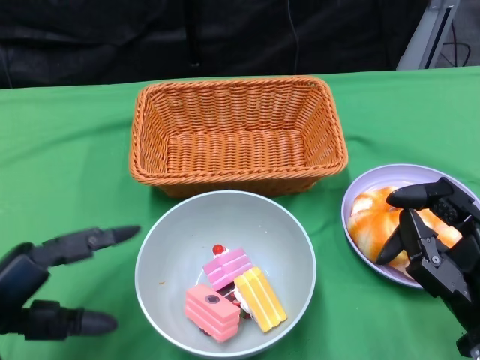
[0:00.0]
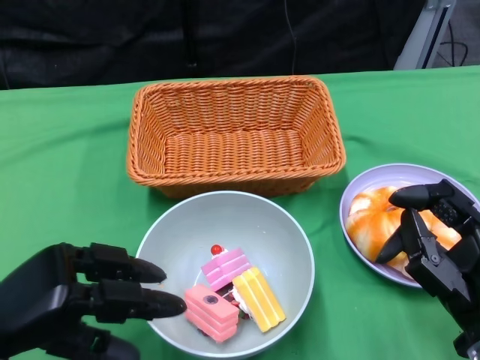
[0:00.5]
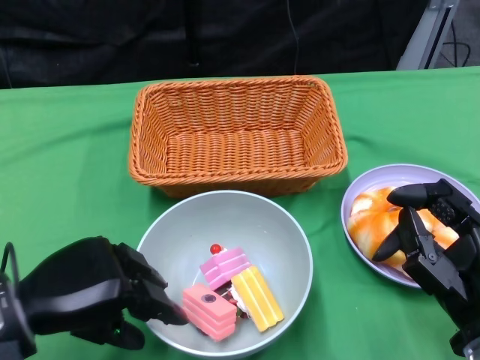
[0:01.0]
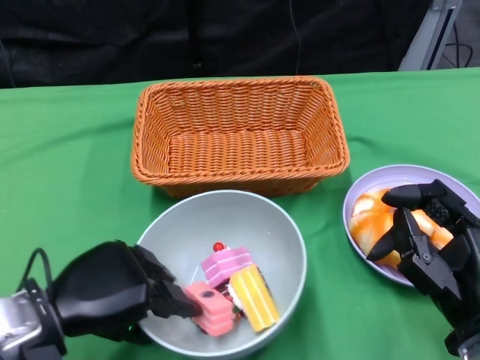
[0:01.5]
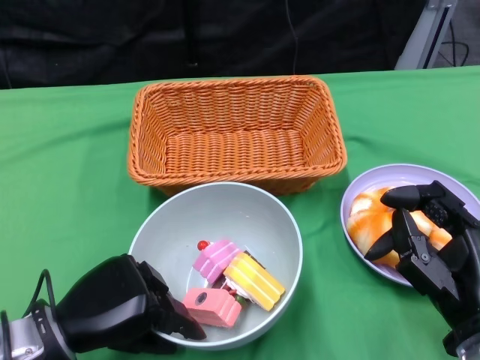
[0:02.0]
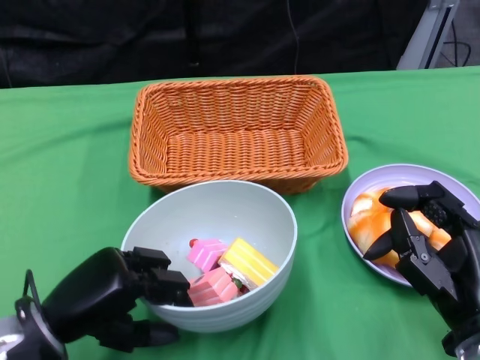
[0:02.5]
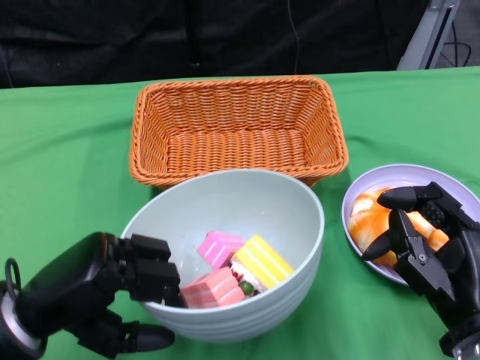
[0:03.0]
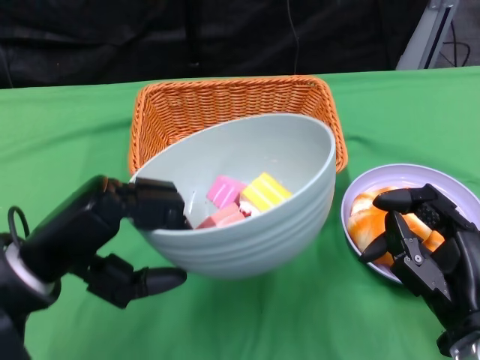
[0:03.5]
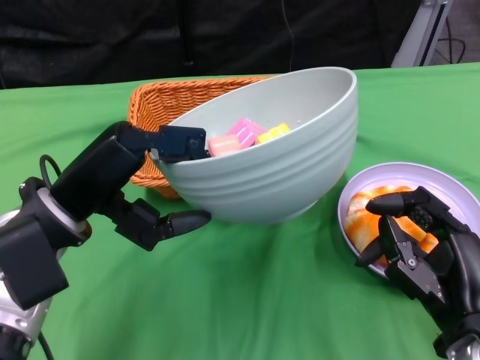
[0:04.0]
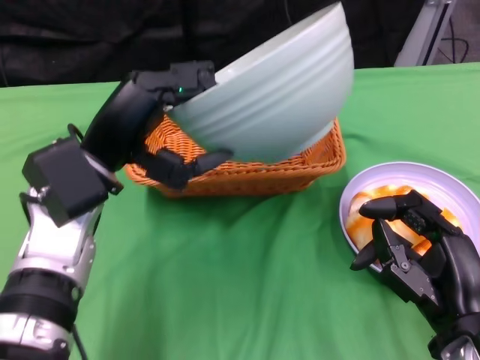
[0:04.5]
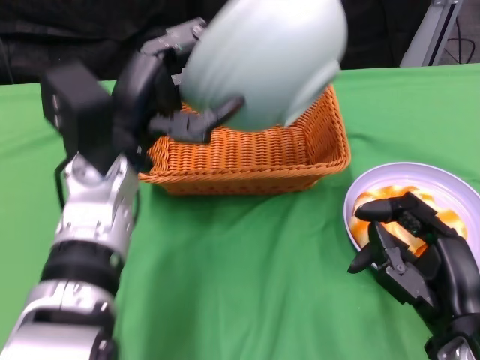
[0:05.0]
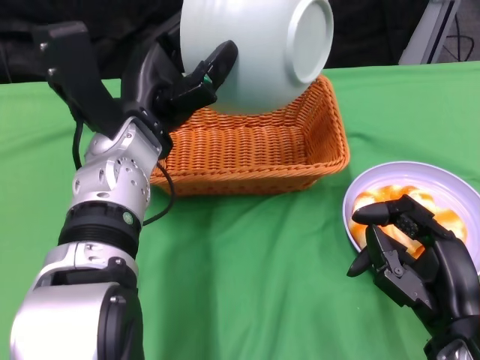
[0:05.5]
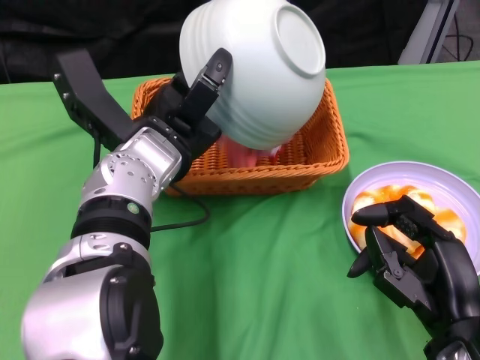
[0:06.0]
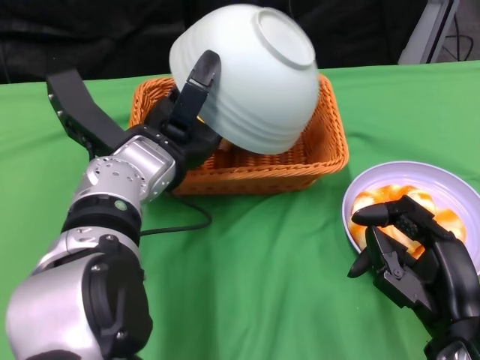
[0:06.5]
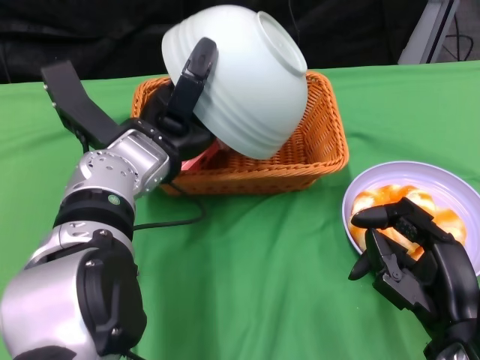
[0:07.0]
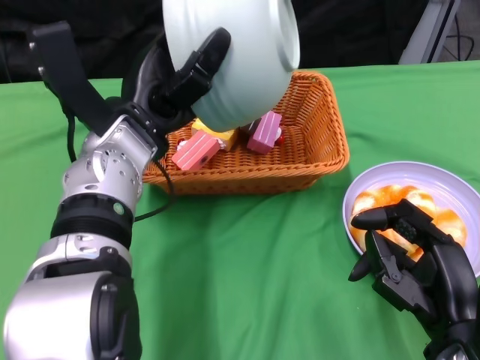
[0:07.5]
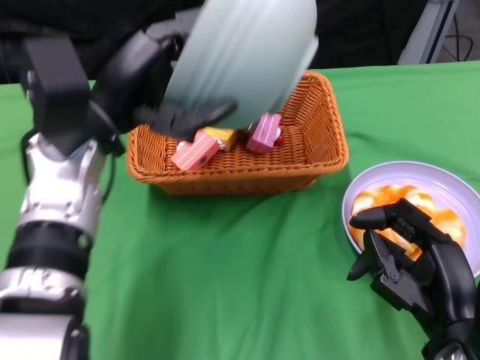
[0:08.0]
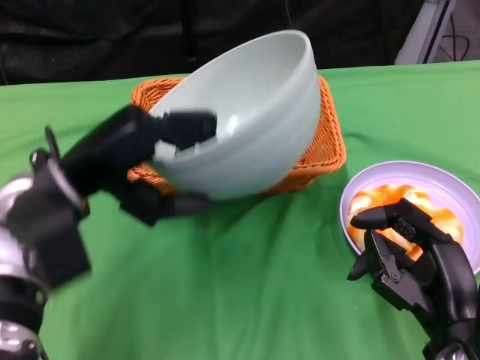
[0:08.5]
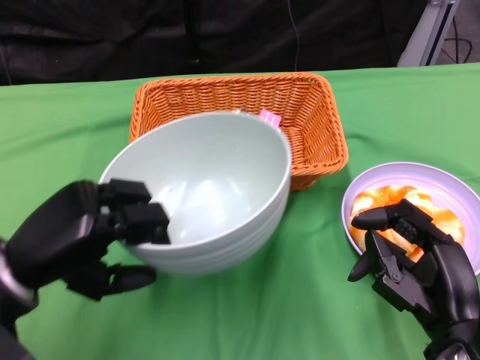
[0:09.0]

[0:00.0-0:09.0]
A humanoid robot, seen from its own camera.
Step, 0:00.0 to 0:02.0: Grasp the bowl with the left gripper.
Step, 0:02.5 to 0:07.0: Pour the cake into the basket with the left gripper.
0:00.0 to 0:02.0: The left hand travels to the right by roughly 5 cm.
0:02.0 to 0:04.5: The left hand heads upward and forward, covering some 15 cm.
0:04.5 to 0:07.0: The left hand goes some 5 cm to the right.
0:07.0 to 0:09.0: The left hand travels to the left and backward by about 15 cm.

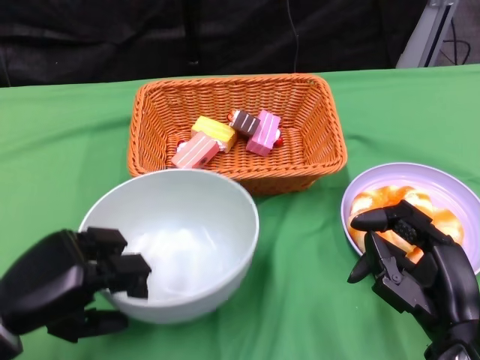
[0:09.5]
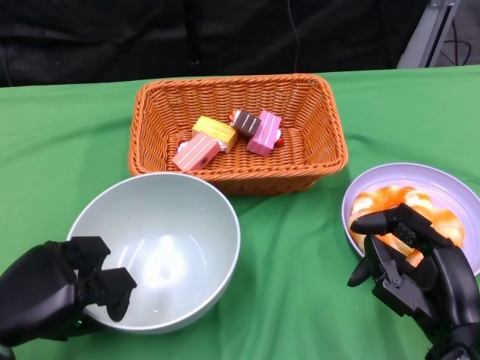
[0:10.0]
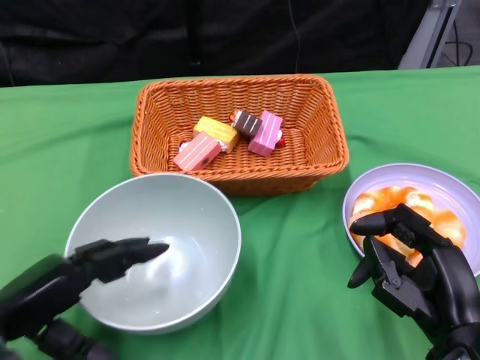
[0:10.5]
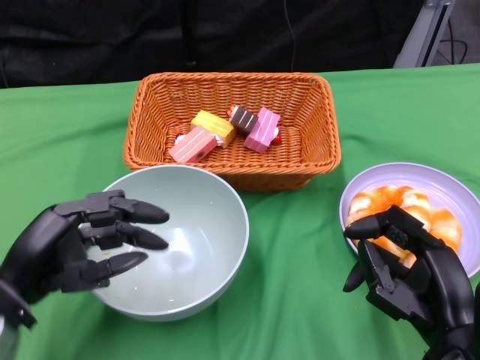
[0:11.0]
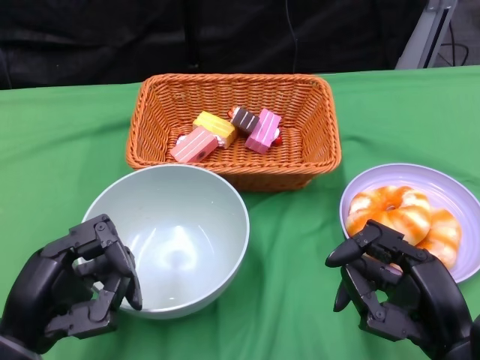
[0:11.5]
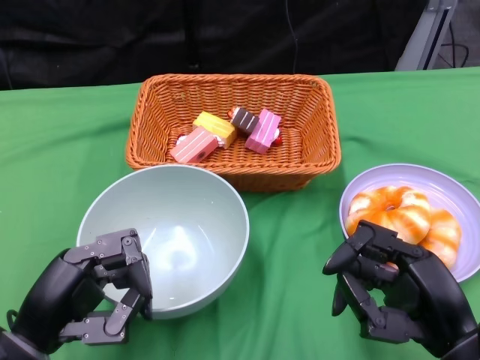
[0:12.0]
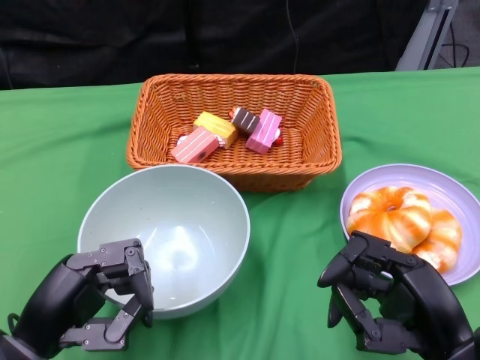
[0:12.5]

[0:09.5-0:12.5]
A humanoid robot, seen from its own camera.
0:11.0 to 0:12.5: The left hand goes approximately 5 cm backward.

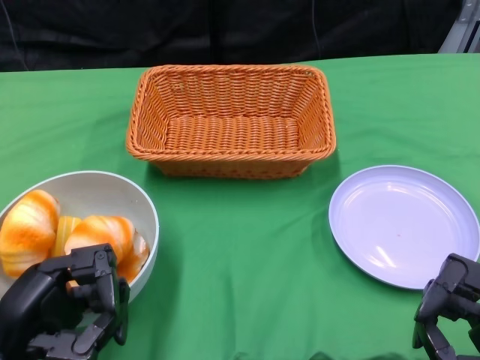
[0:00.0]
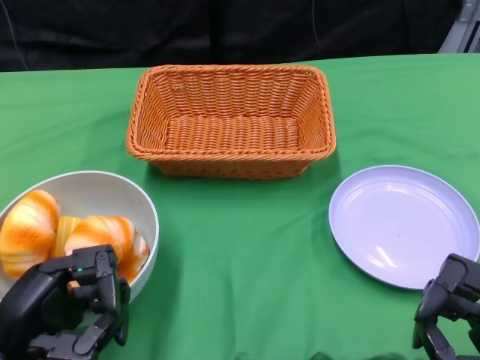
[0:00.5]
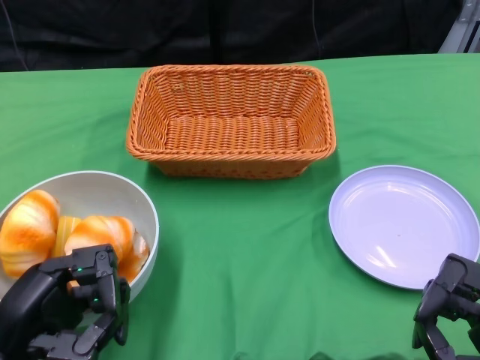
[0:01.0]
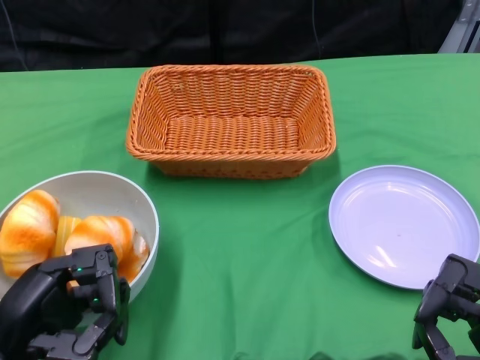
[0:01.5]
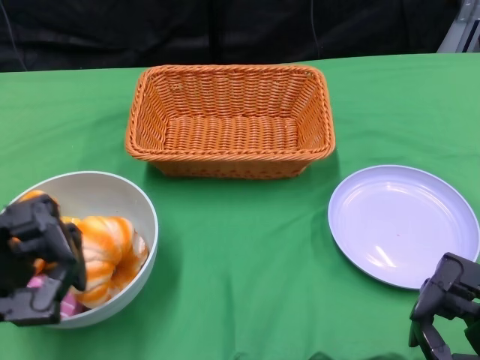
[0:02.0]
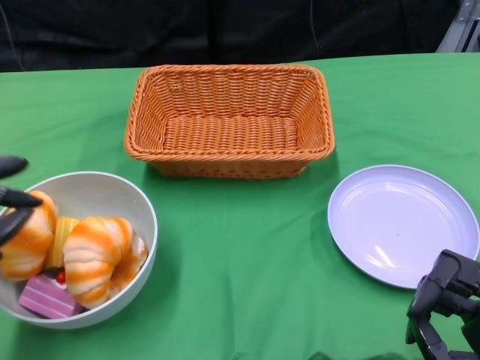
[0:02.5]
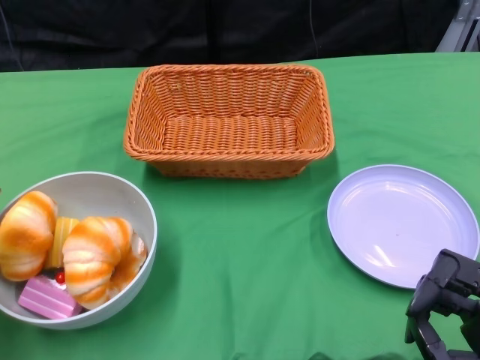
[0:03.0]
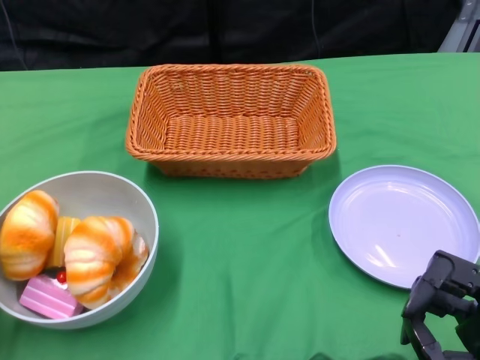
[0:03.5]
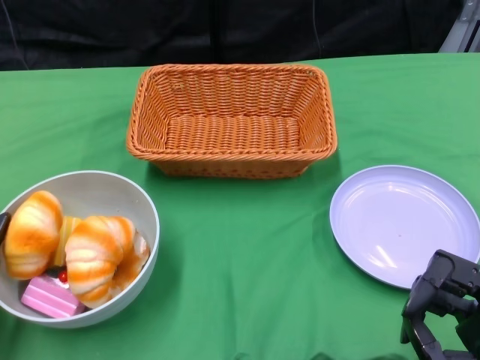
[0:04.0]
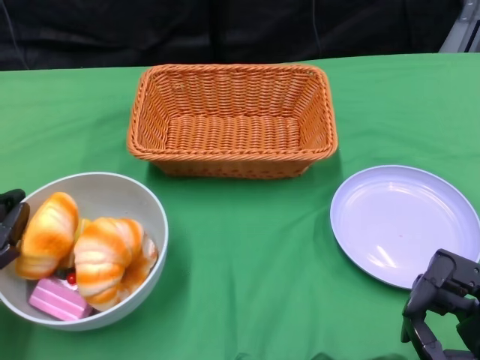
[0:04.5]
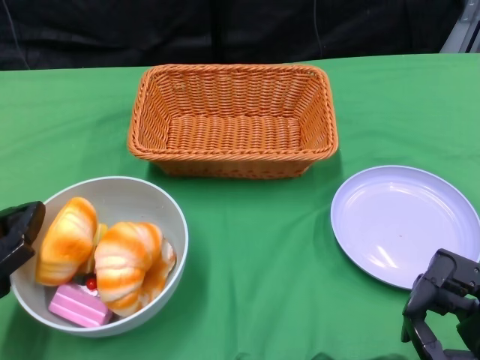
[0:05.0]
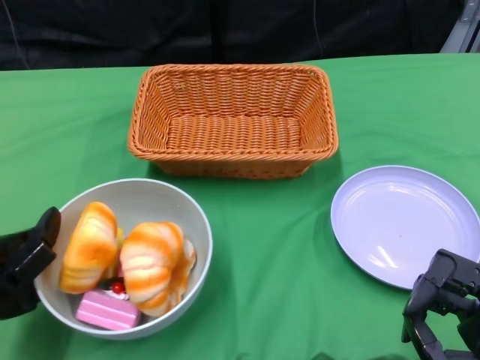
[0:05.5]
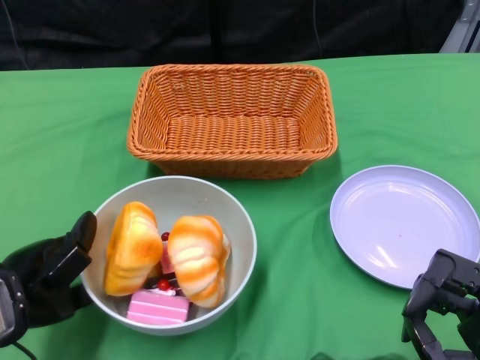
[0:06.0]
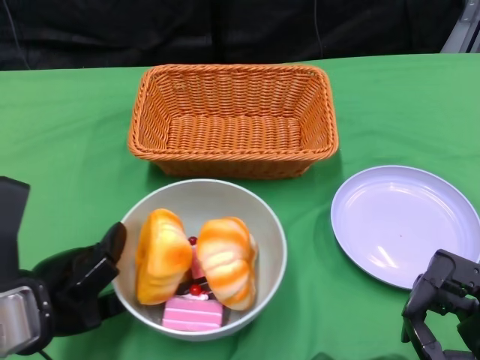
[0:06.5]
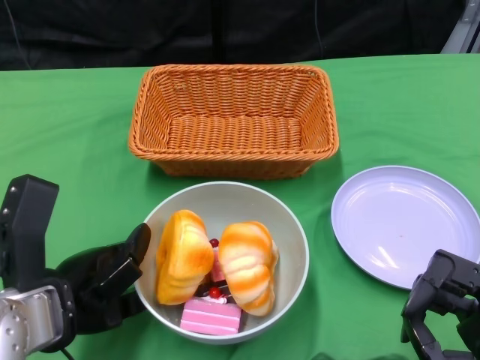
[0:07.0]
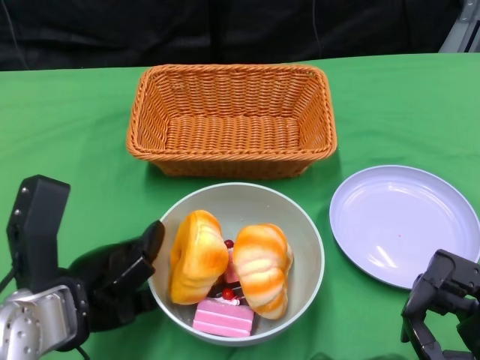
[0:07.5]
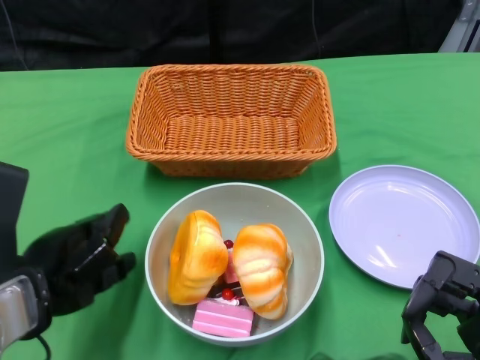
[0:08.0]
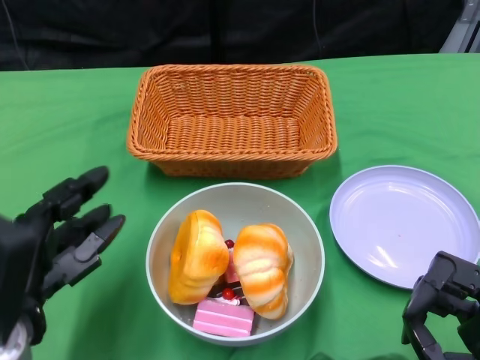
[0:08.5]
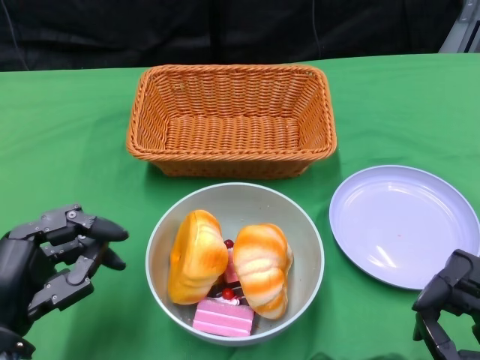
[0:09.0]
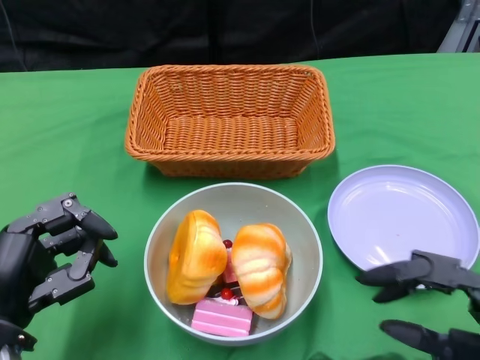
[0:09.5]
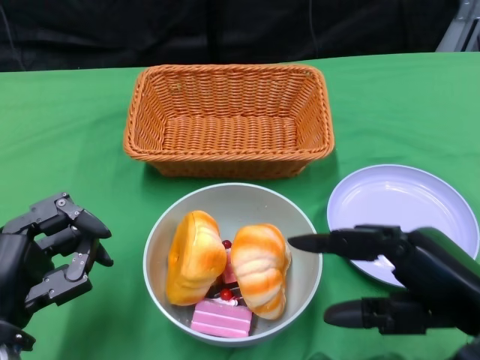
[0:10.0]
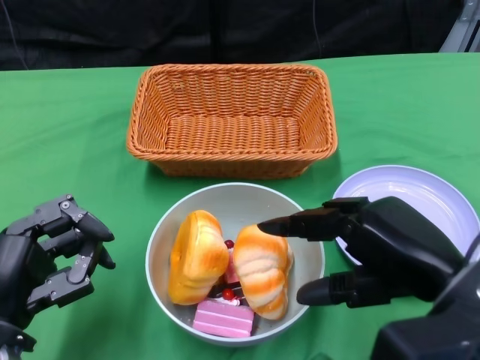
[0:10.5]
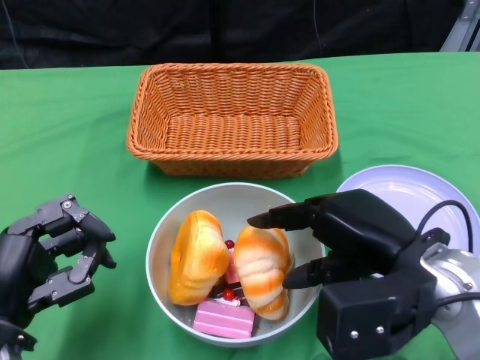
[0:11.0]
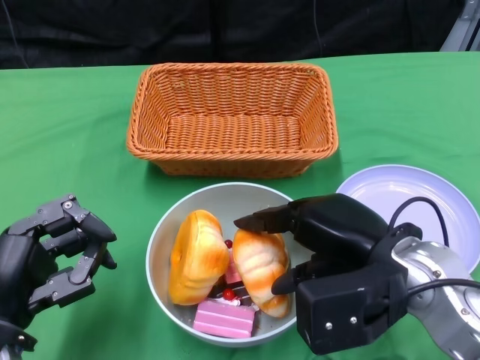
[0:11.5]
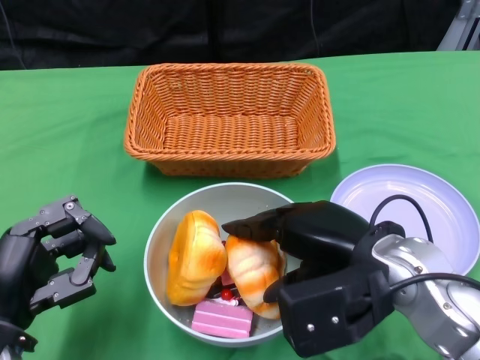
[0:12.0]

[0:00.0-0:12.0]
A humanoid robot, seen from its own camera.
Step, 0:00.0 to 0:07.5: Push the bowl to the center of the table using the left gripper.
0:02.0 to 0:04.0: The left hand heads forward and to the left, covering about 10 cm.
0:04.0 to 0:06.0: The left hand goes about 10 cm to the right.
0:08.0 to 0:10.0: The left hand shifts by about 5 cm, while the right hand shifts roughly 5 cm upward.
0:10.0 to 0:12.0: The right hand moves to the left and forward, some 10 cm.

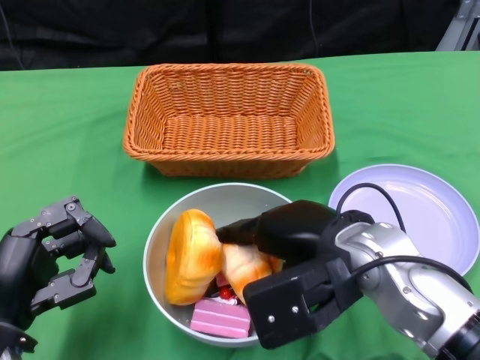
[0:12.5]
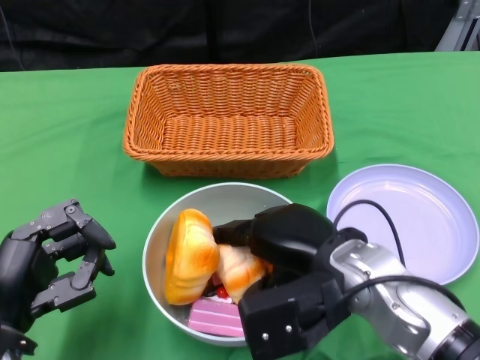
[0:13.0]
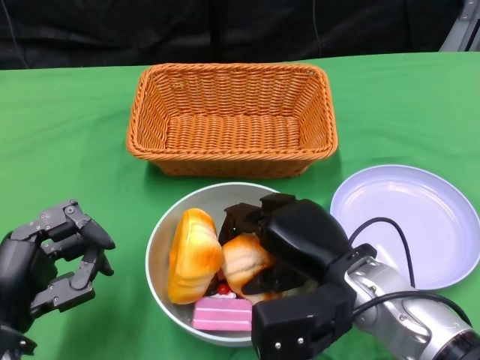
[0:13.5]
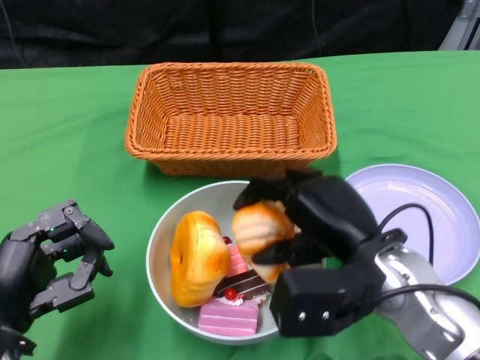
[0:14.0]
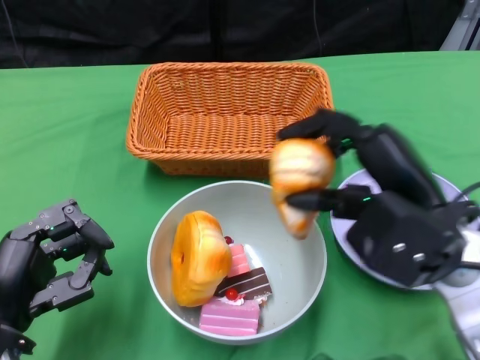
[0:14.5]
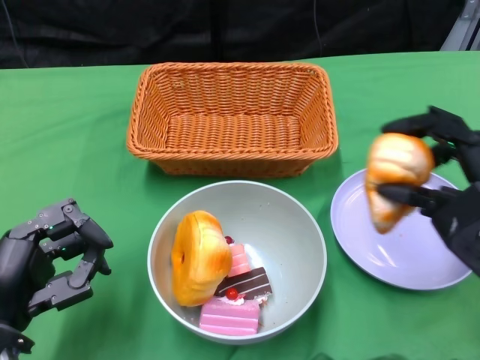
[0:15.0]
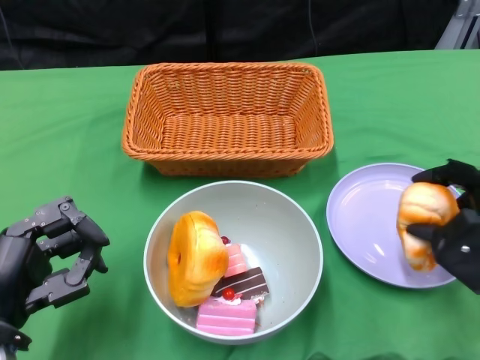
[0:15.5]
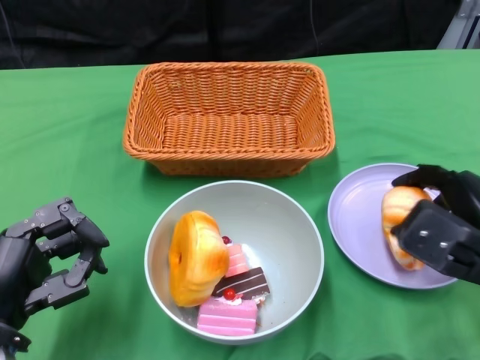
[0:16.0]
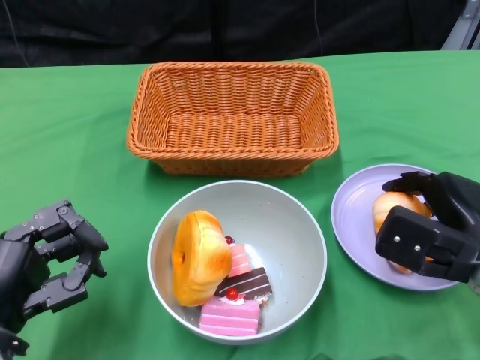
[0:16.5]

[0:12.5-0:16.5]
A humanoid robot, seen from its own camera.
0:12.5 to 0:14.5: The right hand heads to the right, covering about 5 cm, and travels downward and back again, about 5 cm each way.
0:14.5 to 0:16.5: The right hand shifts roughly 10 cm downward and to the right.
